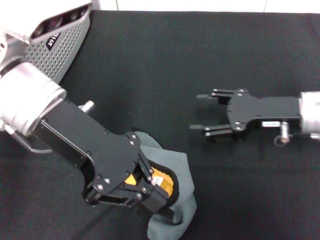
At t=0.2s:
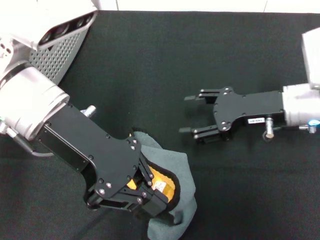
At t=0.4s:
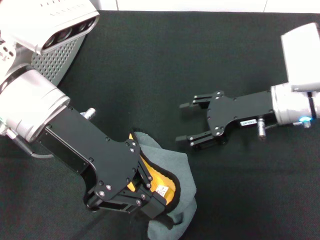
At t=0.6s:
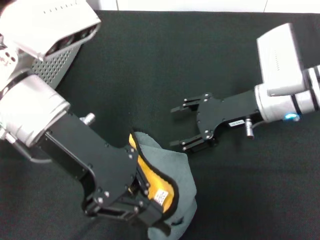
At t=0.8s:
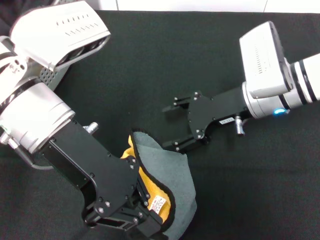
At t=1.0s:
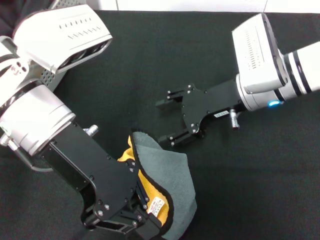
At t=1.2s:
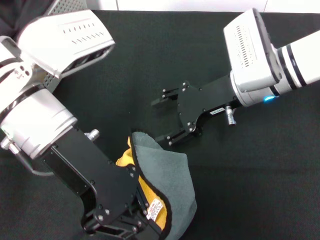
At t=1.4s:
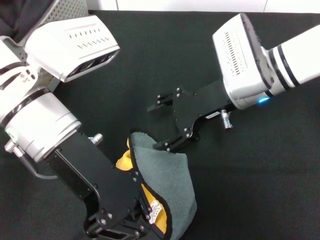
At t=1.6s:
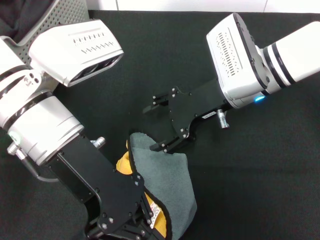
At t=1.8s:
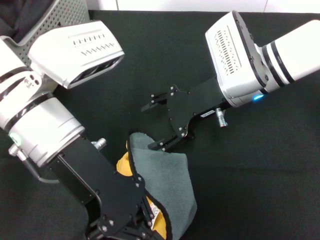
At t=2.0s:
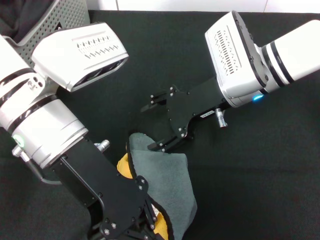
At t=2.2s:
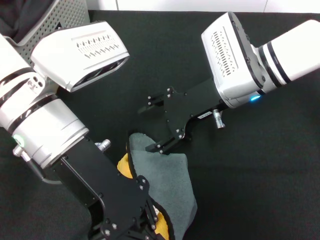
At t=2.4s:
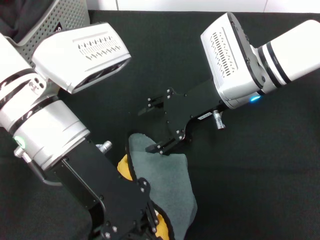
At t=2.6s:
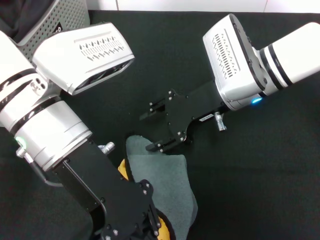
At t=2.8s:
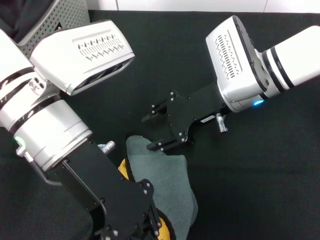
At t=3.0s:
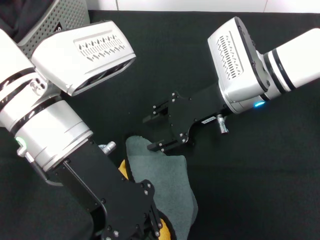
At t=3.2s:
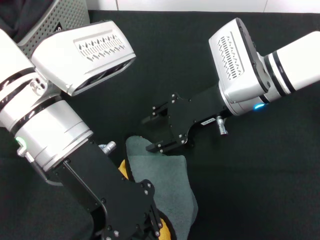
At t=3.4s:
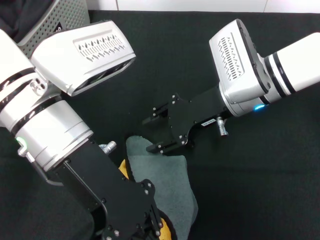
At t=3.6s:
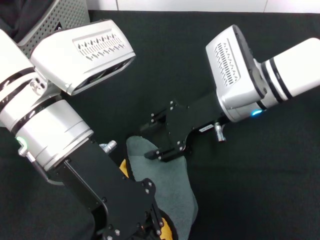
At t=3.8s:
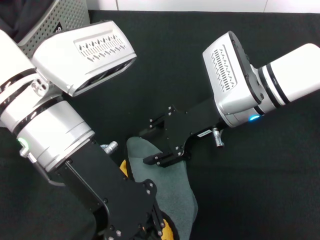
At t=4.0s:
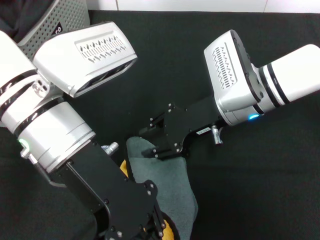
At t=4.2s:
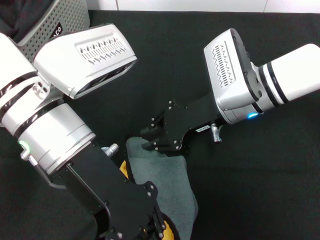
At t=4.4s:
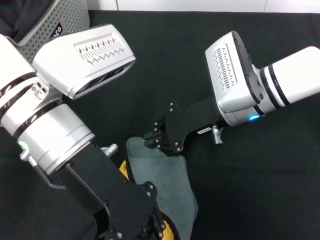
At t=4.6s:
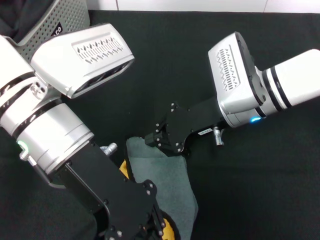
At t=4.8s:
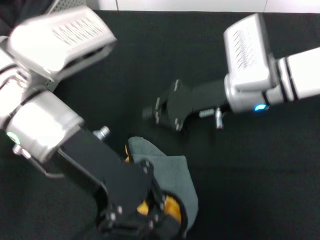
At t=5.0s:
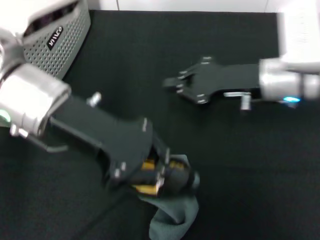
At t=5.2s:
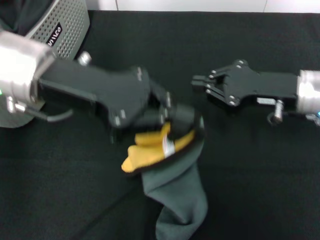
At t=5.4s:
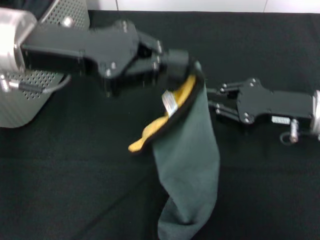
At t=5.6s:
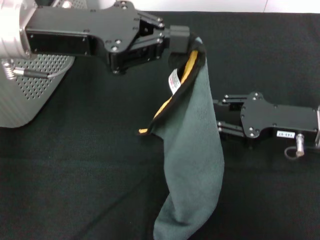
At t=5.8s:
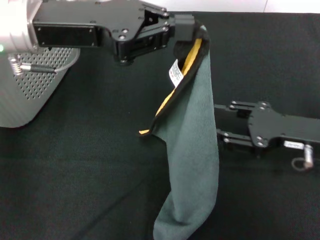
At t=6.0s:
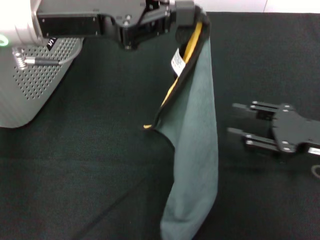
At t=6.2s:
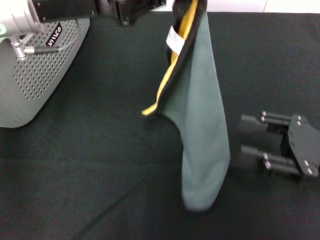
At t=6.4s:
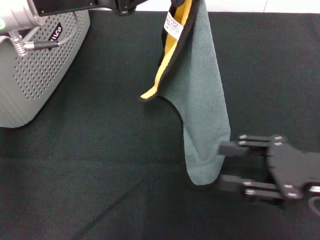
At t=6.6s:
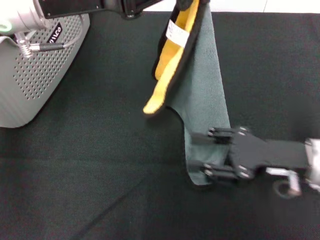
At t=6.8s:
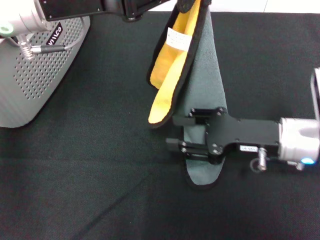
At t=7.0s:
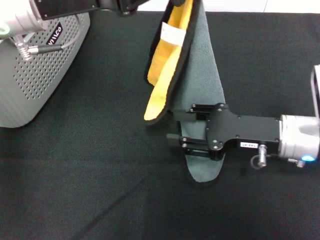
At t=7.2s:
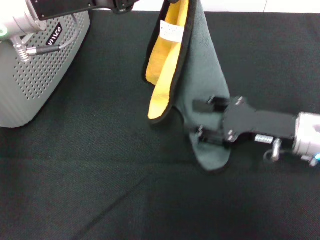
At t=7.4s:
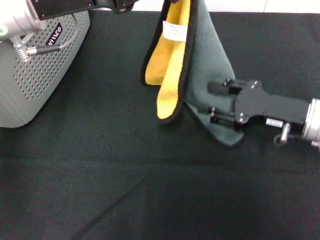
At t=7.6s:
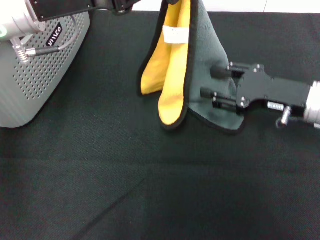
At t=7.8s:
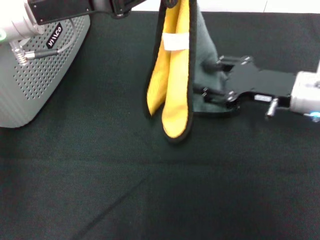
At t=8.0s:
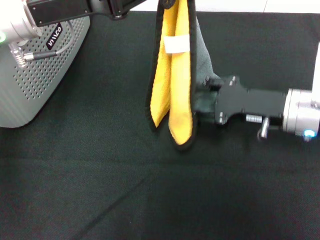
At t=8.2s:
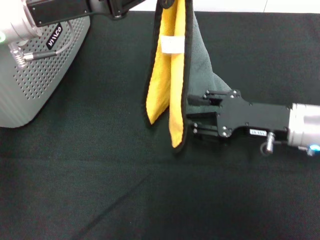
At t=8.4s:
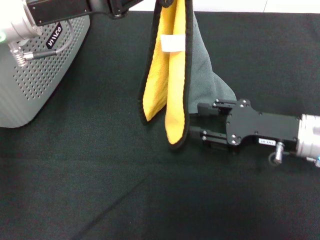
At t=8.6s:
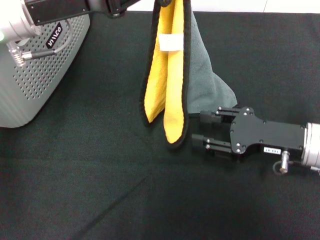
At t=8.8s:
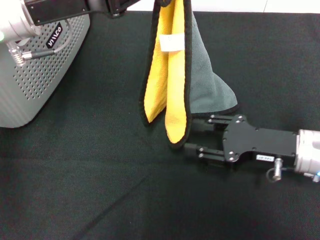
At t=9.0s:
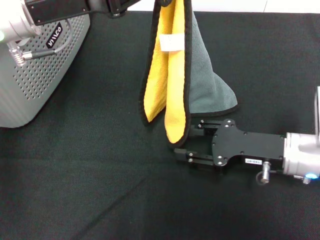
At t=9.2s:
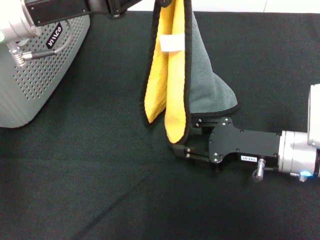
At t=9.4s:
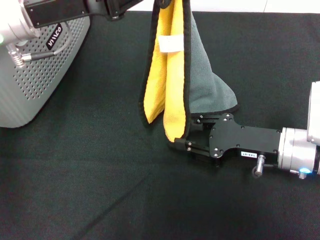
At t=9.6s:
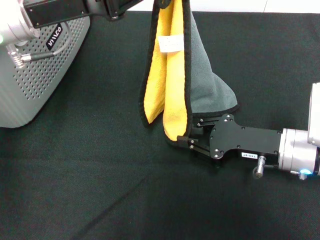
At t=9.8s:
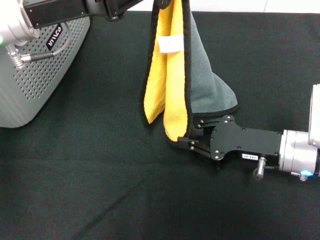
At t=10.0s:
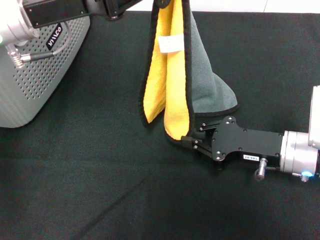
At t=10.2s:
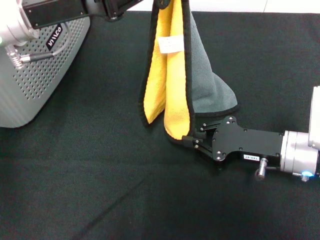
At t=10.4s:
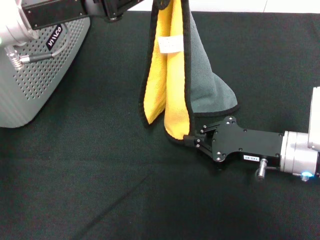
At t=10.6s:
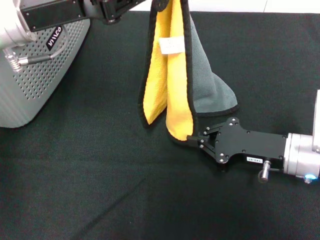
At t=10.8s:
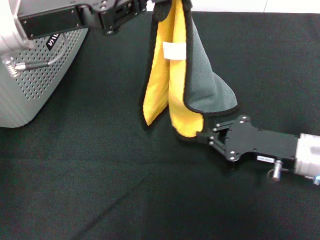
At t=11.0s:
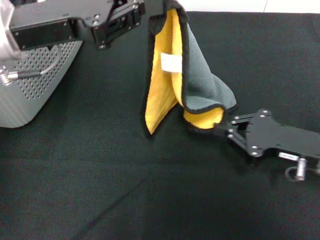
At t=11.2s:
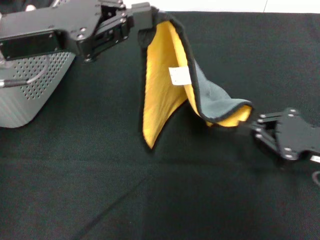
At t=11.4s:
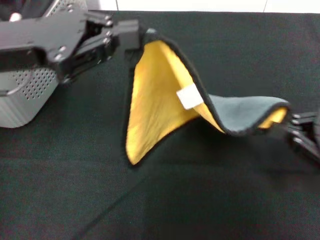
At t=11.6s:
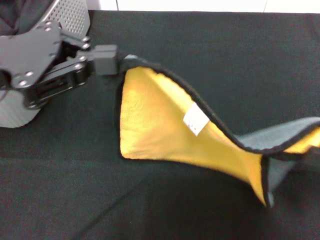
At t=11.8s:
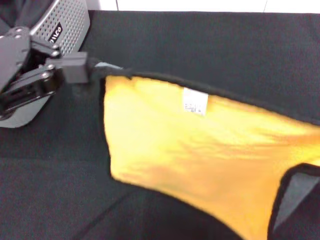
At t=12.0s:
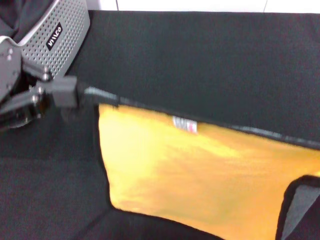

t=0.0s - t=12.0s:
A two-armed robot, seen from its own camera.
Task of the whole recording: pick up the towel from the storage box and lay it flat on the black tablecloth.
Step, t=0.0s - t=10.6s: Spread the towel flat with the left gripper.
t=0.0s - t=1.6s: The right gripper shifts approximately 10 cm to the left.
t=3.0s - t=4.4s: The right gripper closes.
t=4.4s - t=6.0s: The left gripper shifts some 10 cm forward, to the left and upward, while the right gripper shifts about 20 cm to the right and backward, and opens its fingers.
t=6.0s - t=7.6s: The right gripper goes some 5 cm forward.
t=7.6s - t=9.0s: The right gripper ends up some 5 cm from where it was.
t=9.0s - t=10.4s: The right gripper closes.
t=10.4s - t=12.0s: The right gripper heads to the right, backward and upward, covering about 20 cm, while the left gripper shifts about 10 cm to the left and backward.

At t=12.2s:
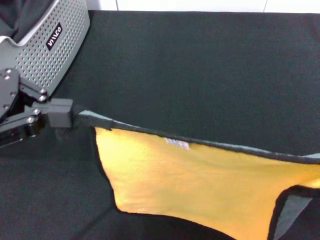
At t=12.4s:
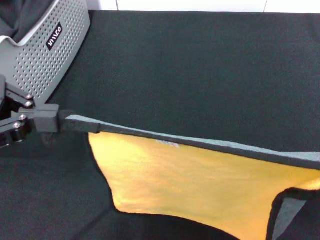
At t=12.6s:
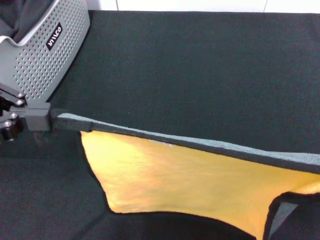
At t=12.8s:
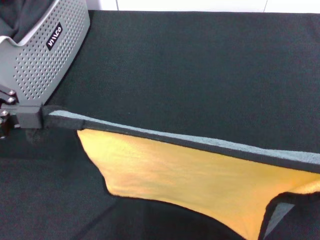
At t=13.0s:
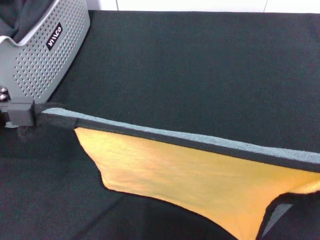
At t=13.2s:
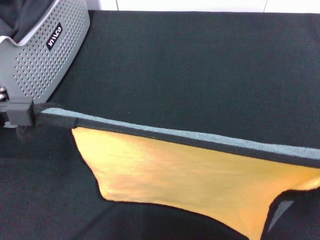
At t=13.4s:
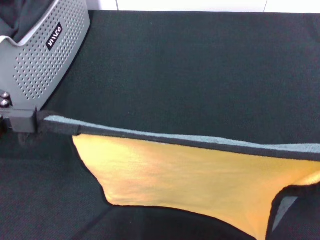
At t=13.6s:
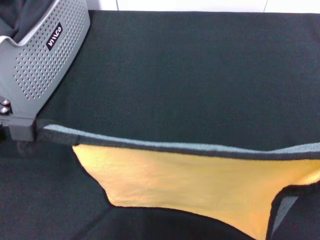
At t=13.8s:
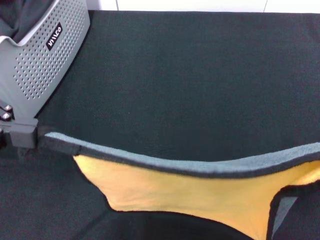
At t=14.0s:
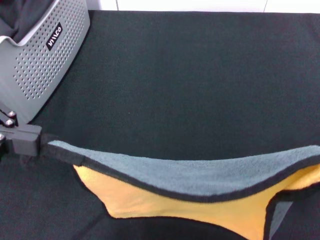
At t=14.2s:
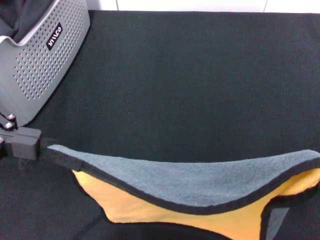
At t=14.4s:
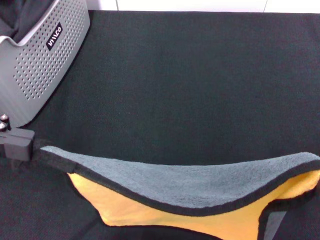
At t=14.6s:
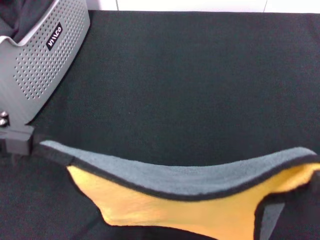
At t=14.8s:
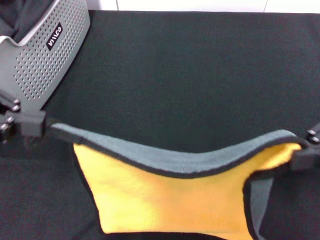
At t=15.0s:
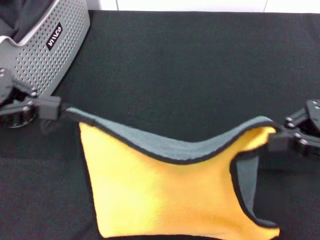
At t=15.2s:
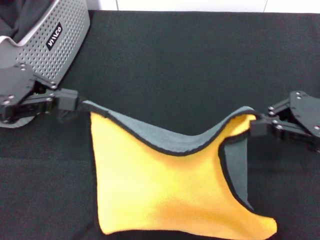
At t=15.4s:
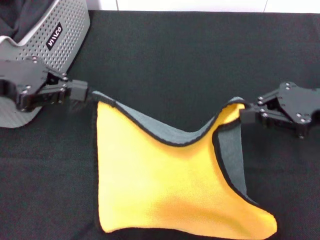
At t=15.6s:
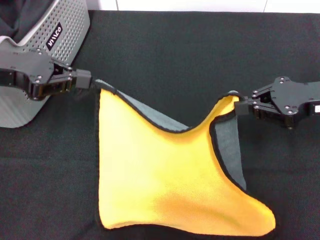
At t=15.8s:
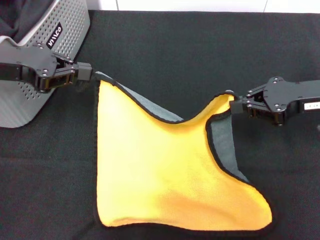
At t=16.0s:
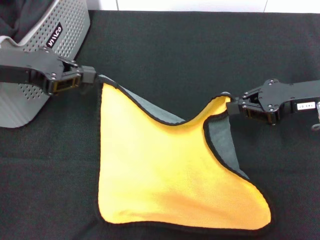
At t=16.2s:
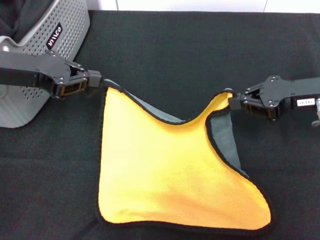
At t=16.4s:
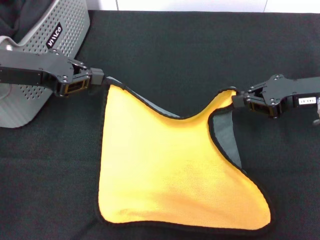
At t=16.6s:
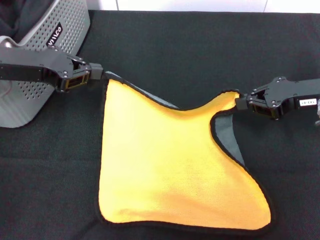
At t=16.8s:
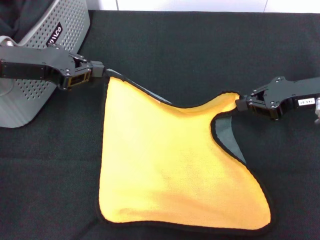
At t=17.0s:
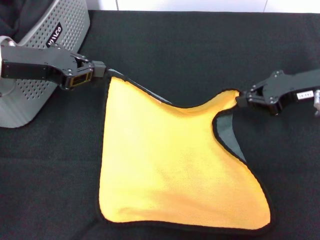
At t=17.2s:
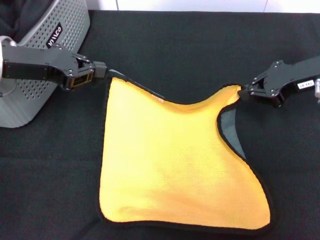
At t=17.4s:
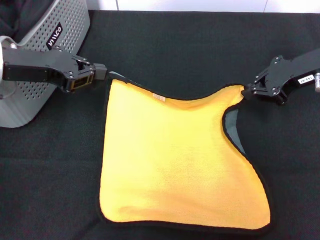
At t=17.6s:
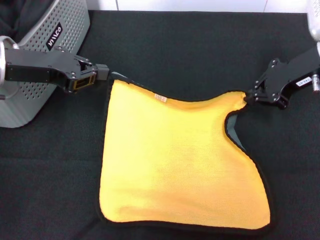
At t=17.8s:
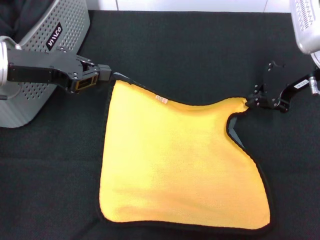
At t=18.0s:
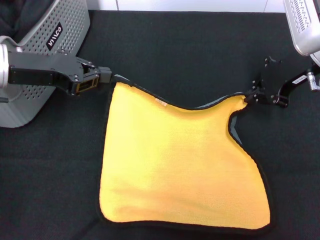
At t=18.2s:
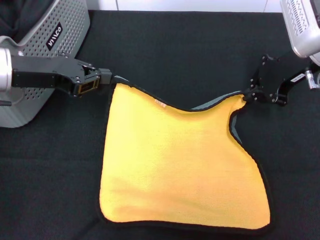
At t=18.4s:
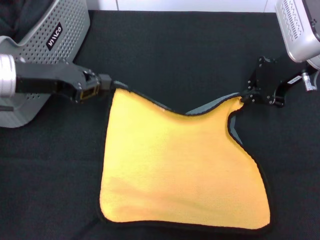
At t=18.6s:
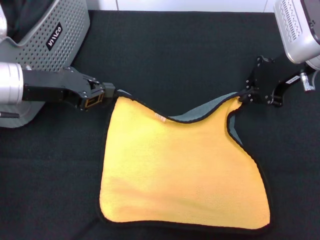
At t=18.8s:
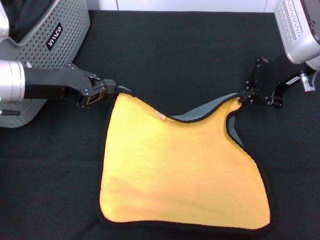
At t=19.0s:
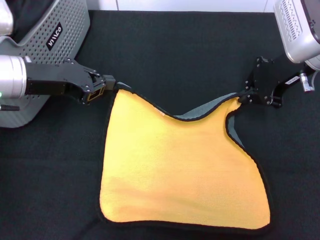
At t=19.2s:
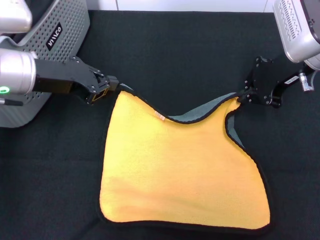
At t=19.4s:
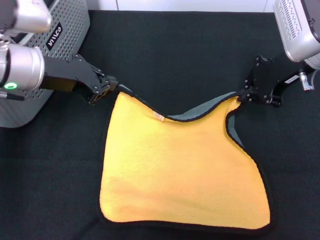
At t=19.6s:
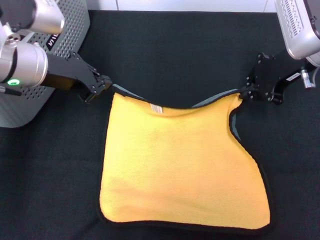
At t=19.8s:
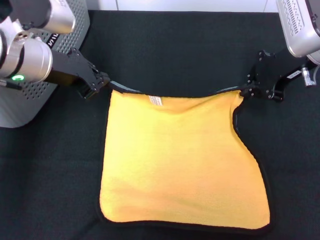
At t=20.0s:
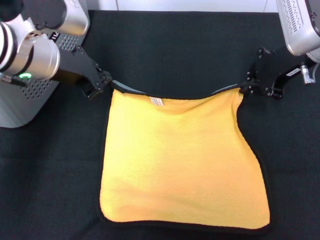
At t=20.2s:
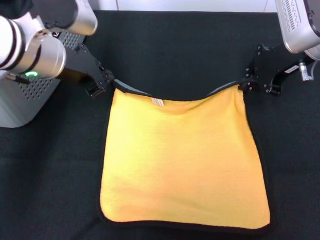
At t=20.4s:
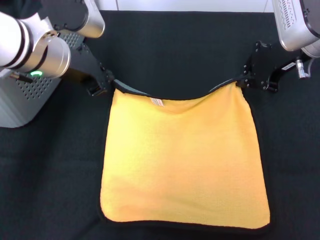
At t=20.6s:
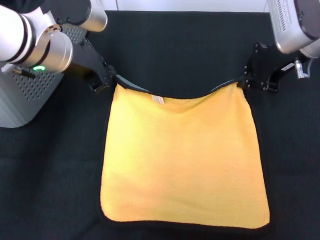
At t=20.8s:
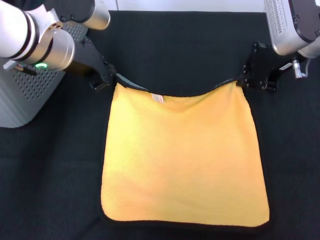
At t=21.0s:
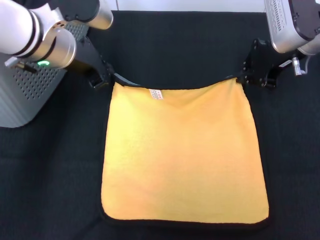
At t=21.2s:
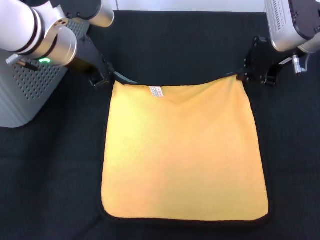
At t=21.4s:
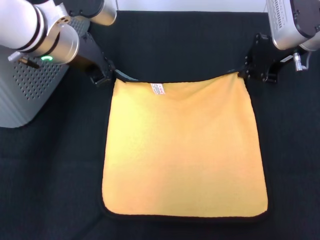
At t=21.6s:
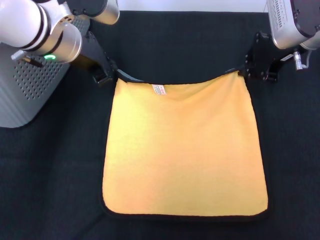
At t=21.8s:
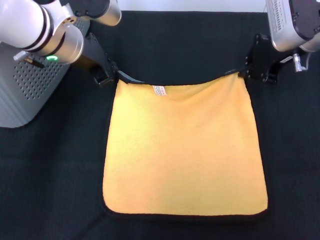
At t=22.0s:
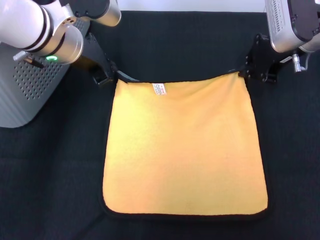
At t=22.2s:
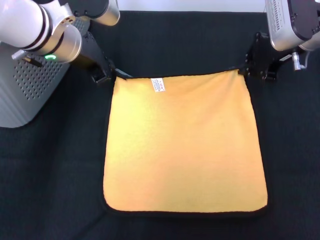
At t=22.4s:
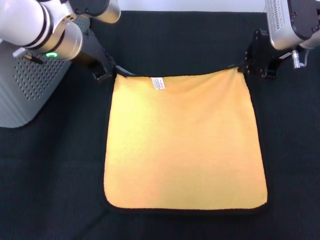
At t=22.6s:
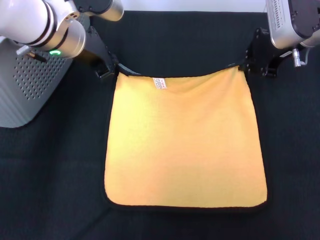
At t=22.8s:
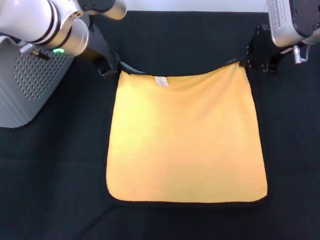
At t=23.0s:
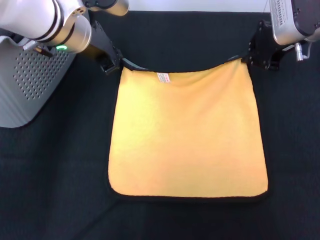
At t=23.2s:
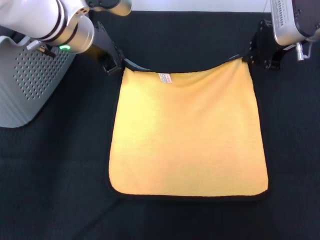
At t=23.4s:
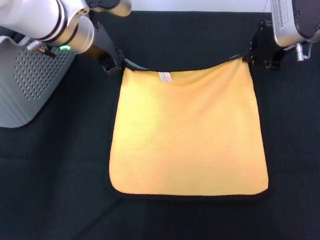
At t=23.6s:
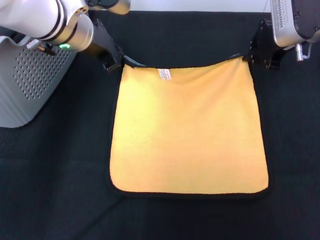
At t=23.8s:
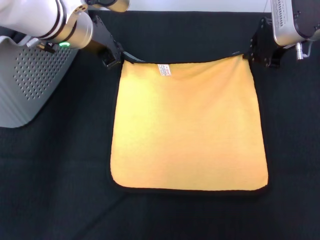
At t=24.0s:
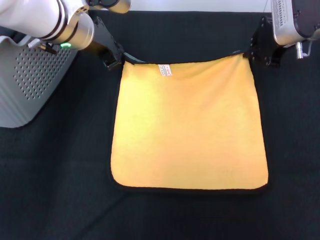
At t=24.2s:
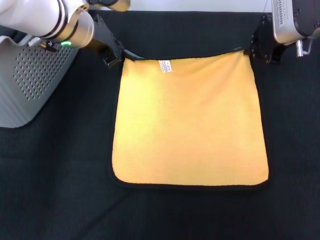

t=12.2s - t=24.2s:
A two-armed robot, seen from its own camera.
Task of the whole recording: pick up the towel from the storage box and lay it flat on the black tablecloth.
t=12.2s - t=13.8s: The right gripper shifts by roughly 5 cm.
t=13.8s - t=15.2s: Both grippers move forward, about 5 cm.
t=15.2s - t=16.6s: The left gripper shifts by some 5 cm. Meanwhile the right gripper moves forward, roughly 5 cm.
t=16.6s - t=18.2s: The right gripper goes roughly 10 cm to the left, upward and forward.
t=18.2s - t=19.8s: The left gripper heads to the right, covering about 5 cm.
t=21.2s - t=24.2s: The grippers move only a little.
